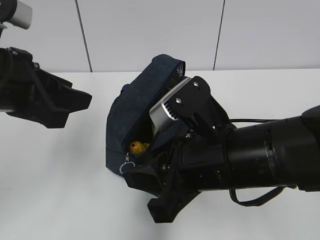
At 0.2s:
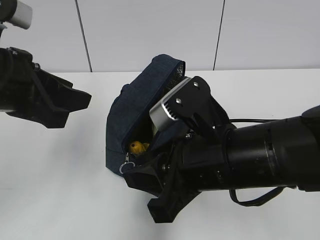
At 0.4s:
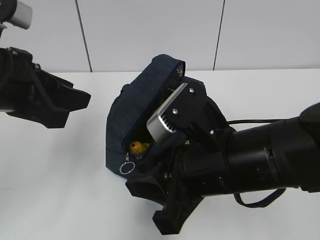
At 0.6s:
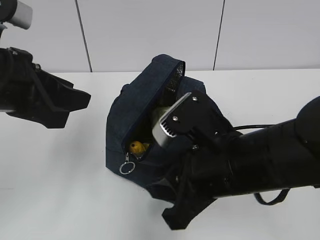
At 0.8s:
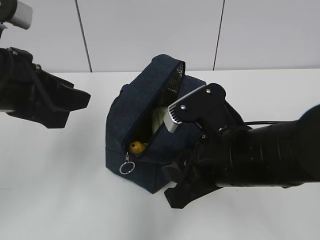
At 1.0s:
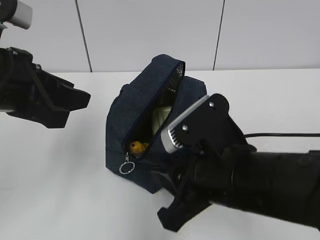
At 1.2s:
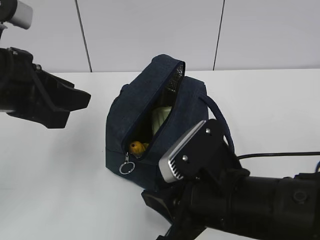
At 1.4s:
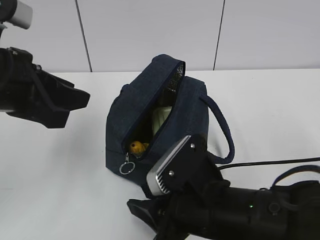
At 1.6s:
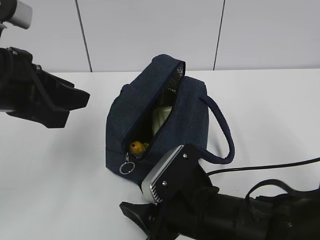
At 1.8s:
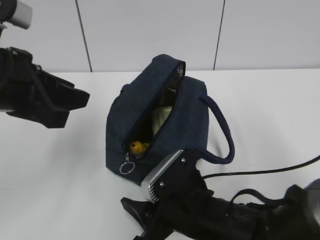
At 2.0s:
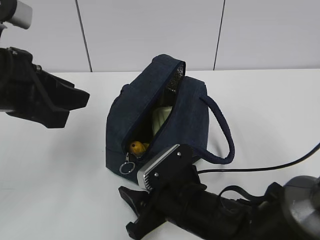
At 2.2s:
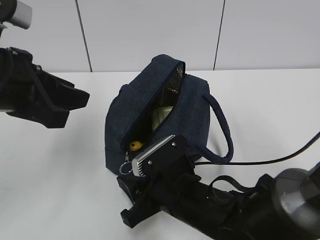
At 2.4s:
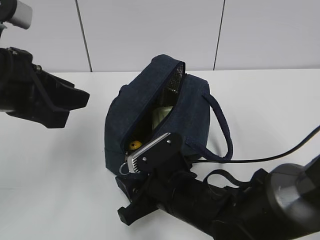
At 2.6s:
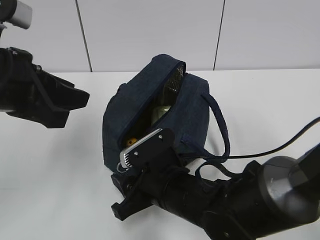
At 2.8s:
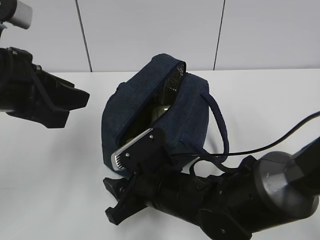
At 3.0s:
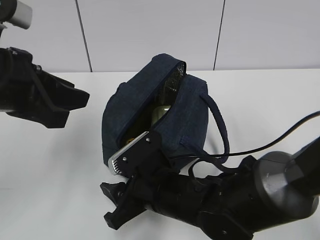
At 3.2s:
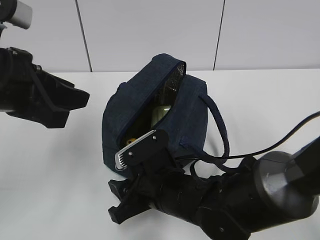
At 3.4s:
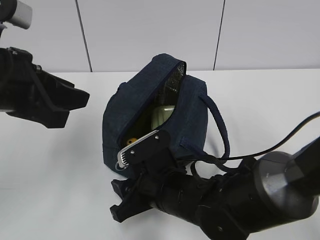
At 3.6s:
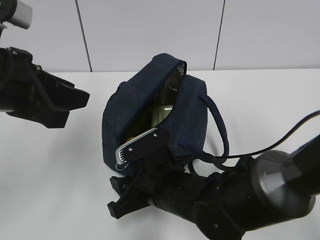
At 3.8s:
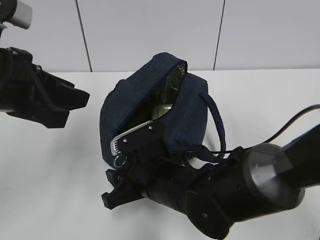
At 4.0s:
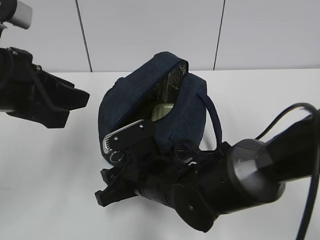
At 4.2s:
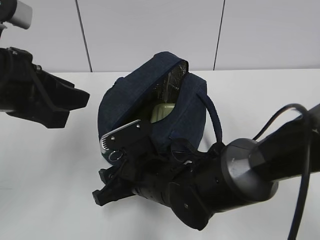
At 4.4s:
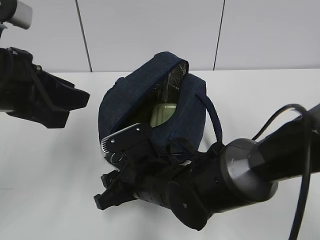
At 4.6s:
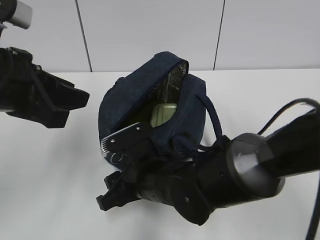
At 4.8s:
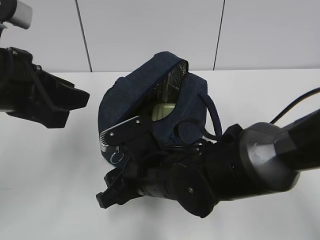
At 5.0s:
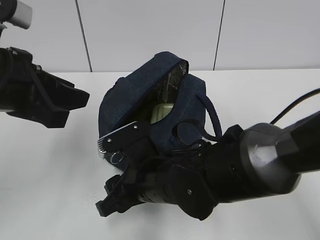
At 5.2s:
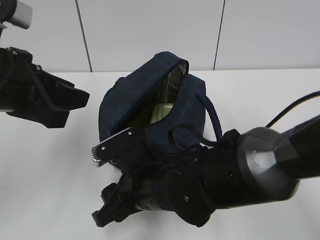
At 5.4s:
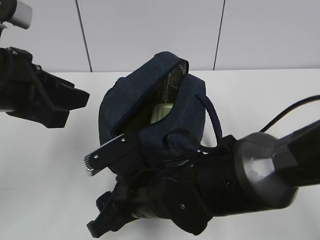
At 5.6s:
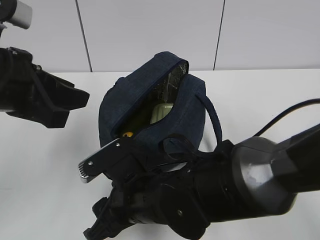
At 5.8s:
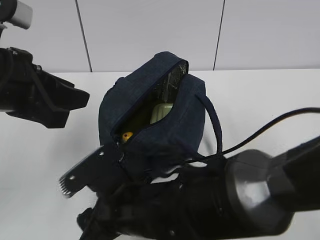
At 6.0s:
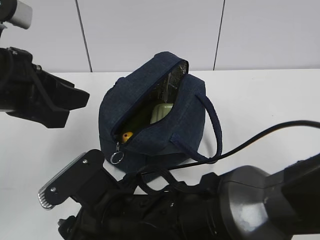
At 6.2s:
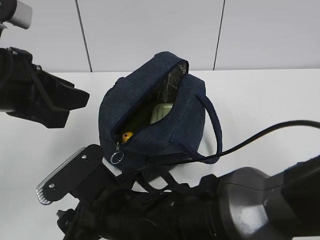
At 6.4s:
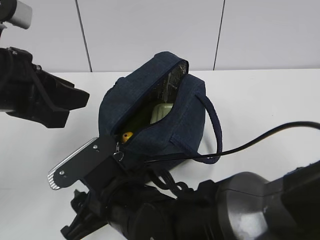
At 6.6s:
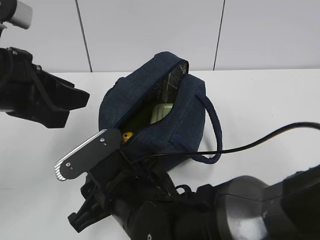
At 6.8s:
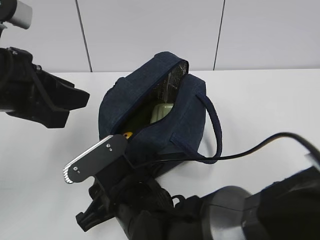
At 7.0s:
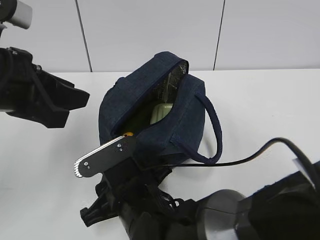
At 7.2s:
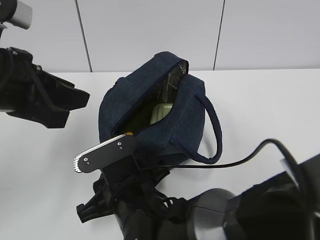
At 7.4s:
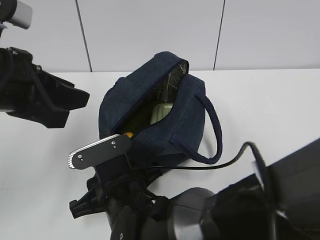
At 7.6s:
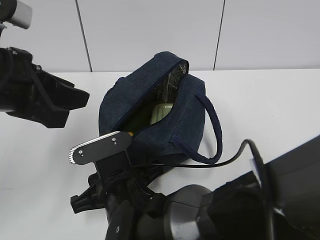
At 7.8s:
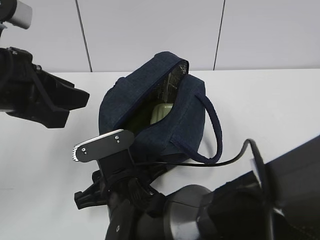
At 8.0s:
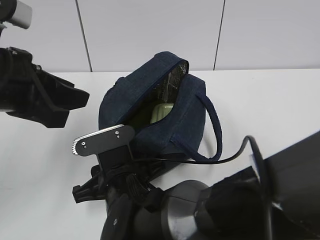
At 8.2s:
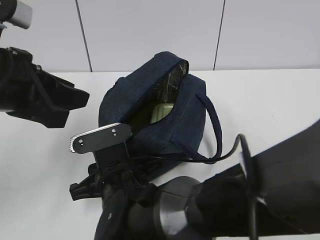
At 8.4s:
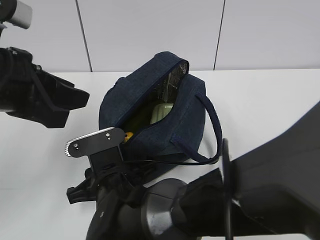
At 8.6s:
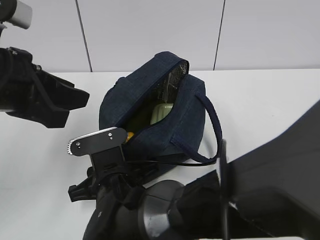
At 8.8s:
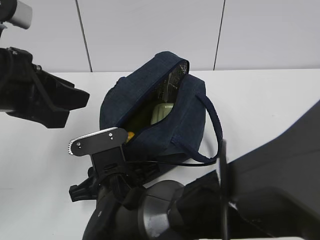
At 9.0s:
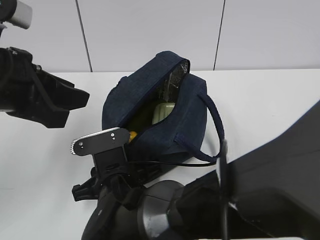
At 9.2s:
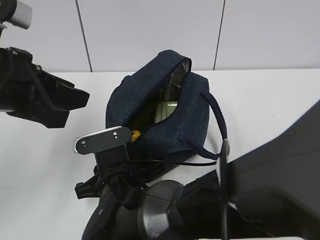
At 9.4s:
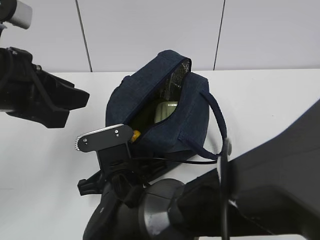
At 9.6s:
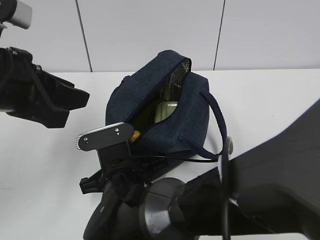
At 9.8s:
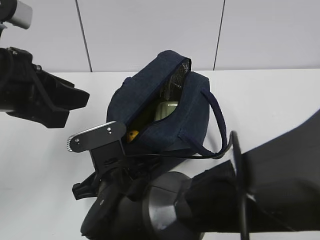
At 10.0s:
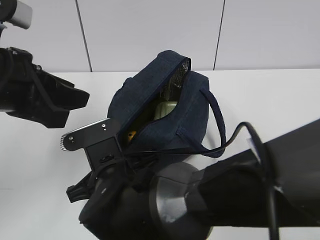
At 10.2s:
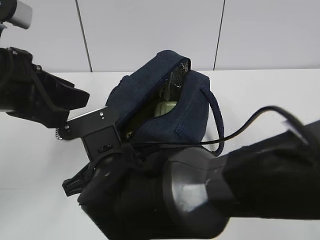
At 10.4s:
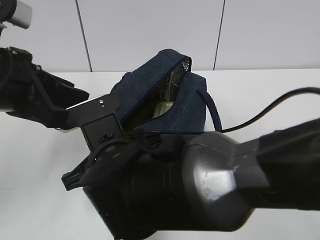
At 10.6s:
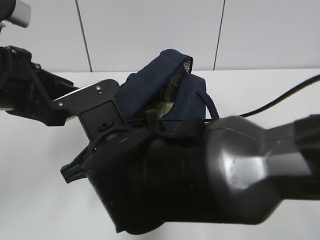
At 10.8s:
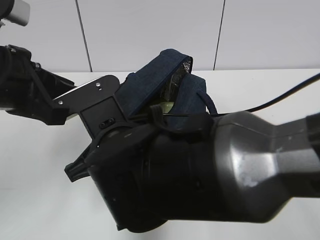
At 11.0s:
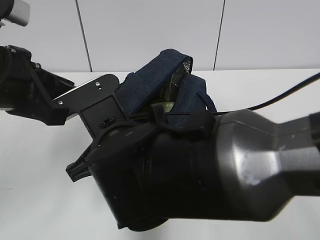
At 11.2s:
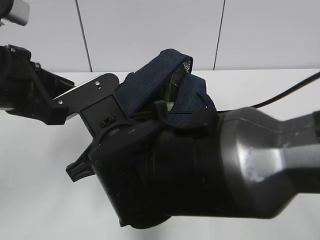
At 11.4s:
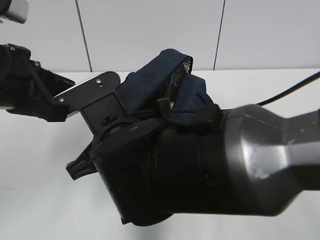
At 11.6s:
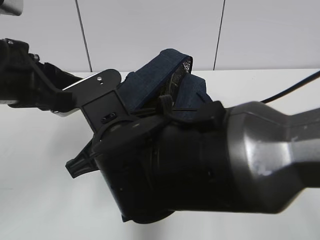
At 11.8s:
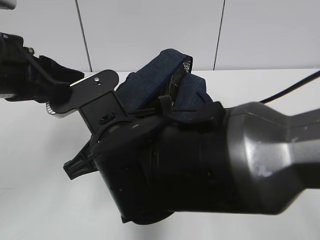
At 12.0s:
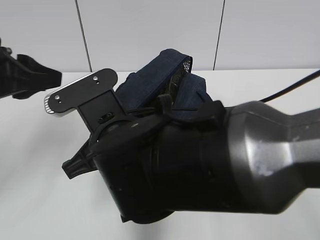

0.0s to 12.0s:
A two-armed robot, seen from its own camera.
0.0s to 1.6s: The right gripper heads downward, covering about 10 cm.
1.6s to 3.0s: The right gripper shifts by roughly 5 cm.
3.0s to 4.4s: The grippers move only a little.
4.4s to 6.0s: The right gripper is displaced backward by some 5 cm.
7.6s to 9.0s: There are only small adjustments of the grippers.
9.0s to 10.4s: The right gripper travels upward by roughly 10 cm, and closes its fingers.

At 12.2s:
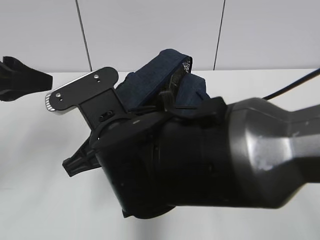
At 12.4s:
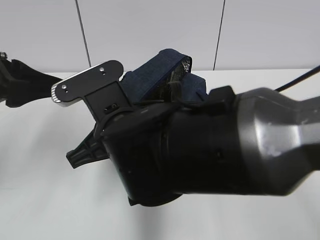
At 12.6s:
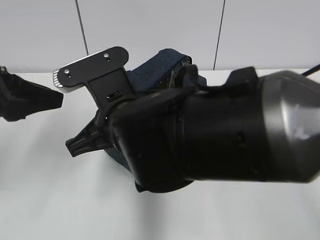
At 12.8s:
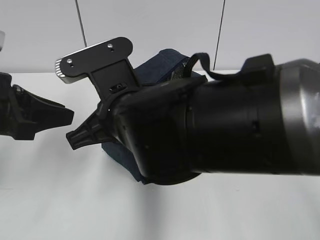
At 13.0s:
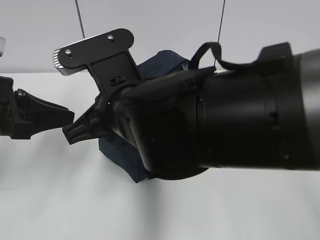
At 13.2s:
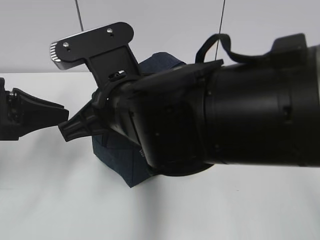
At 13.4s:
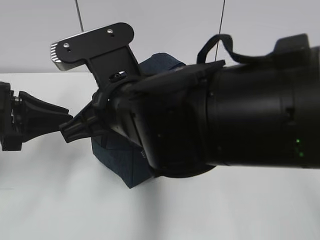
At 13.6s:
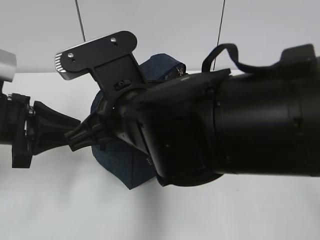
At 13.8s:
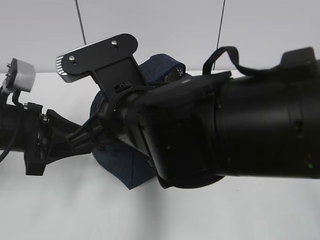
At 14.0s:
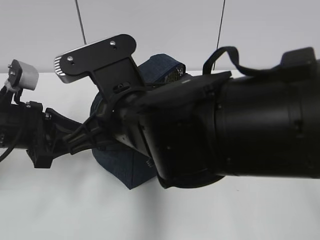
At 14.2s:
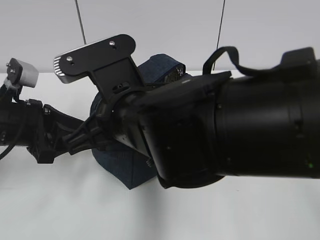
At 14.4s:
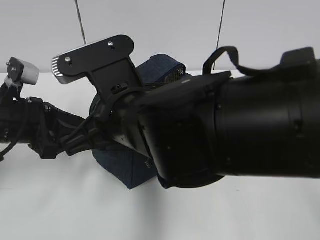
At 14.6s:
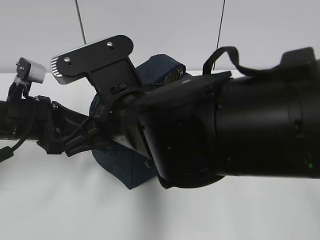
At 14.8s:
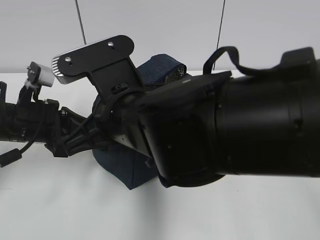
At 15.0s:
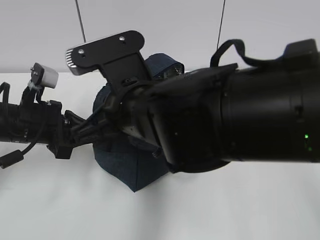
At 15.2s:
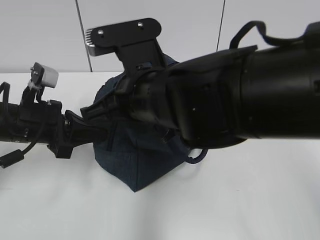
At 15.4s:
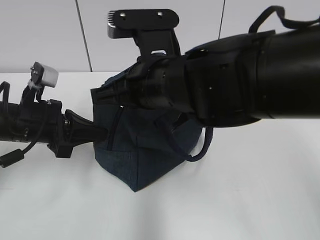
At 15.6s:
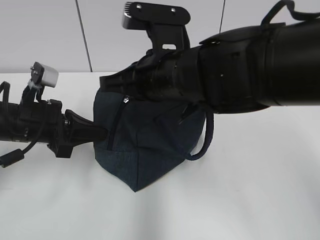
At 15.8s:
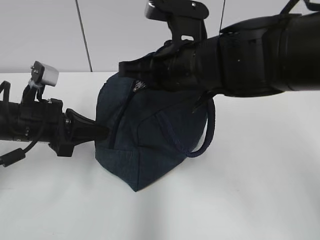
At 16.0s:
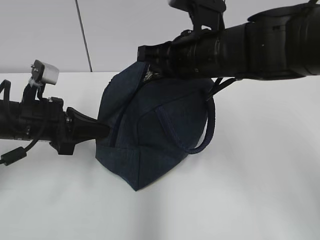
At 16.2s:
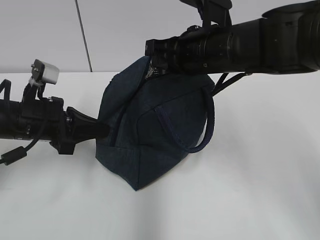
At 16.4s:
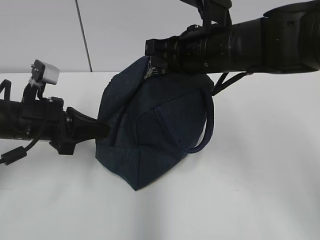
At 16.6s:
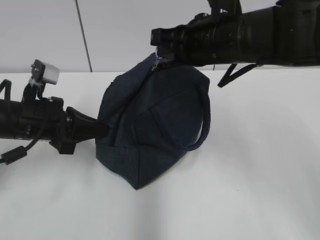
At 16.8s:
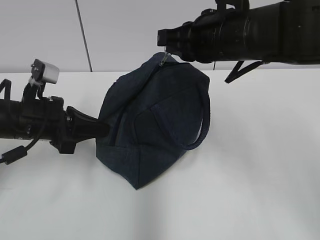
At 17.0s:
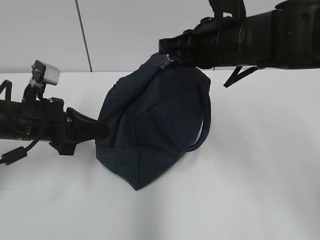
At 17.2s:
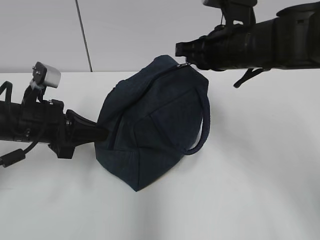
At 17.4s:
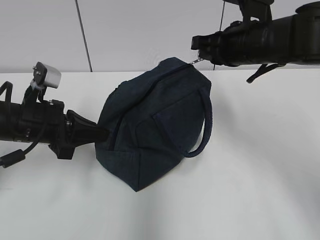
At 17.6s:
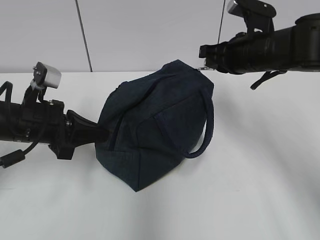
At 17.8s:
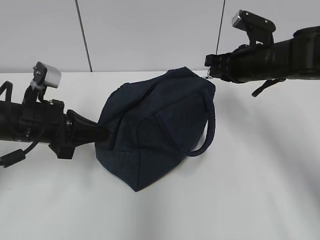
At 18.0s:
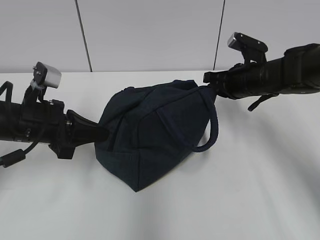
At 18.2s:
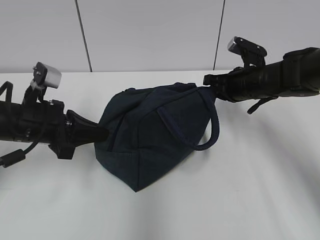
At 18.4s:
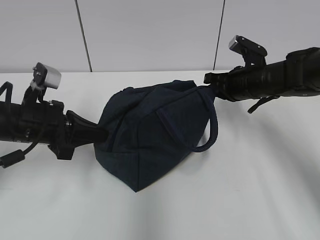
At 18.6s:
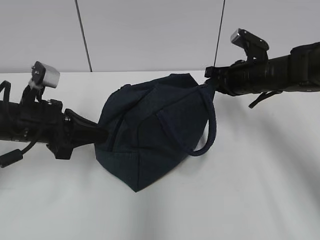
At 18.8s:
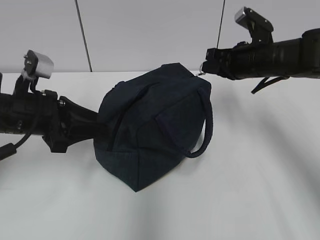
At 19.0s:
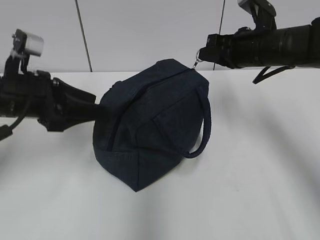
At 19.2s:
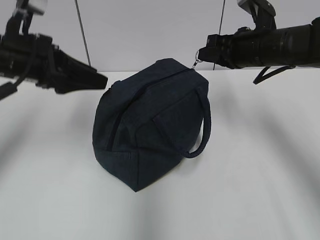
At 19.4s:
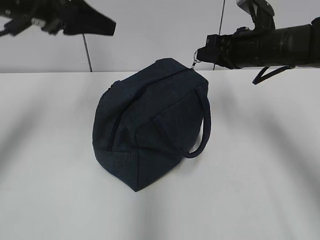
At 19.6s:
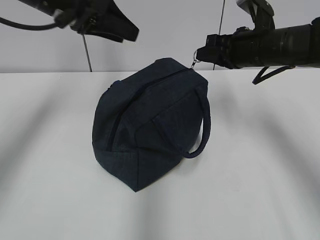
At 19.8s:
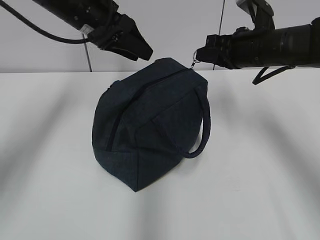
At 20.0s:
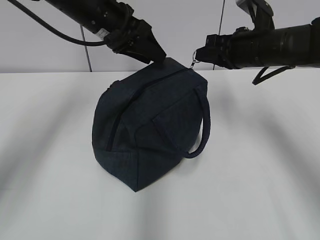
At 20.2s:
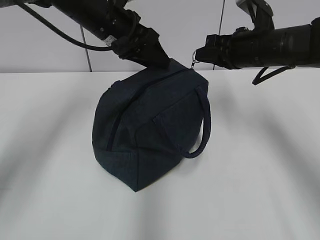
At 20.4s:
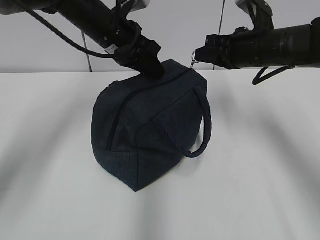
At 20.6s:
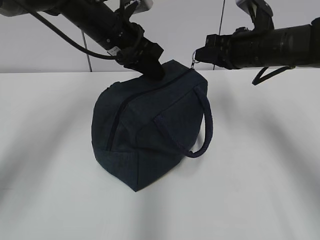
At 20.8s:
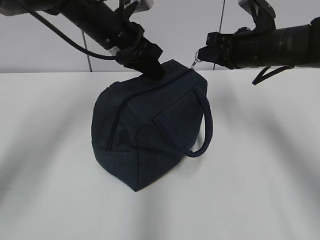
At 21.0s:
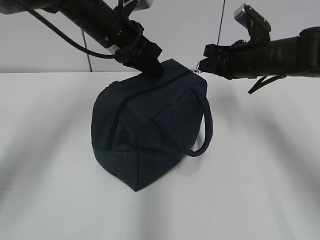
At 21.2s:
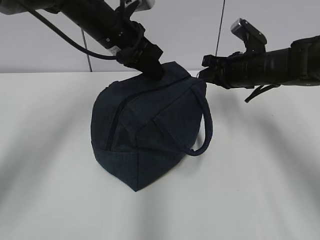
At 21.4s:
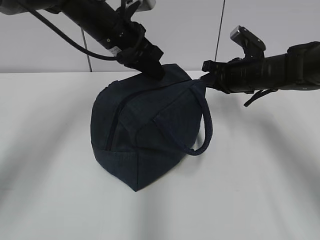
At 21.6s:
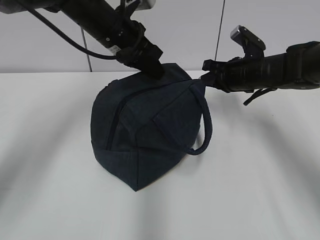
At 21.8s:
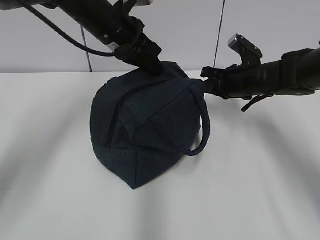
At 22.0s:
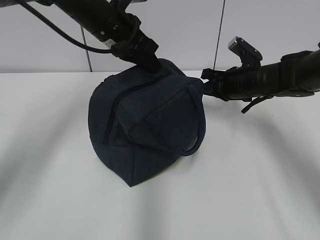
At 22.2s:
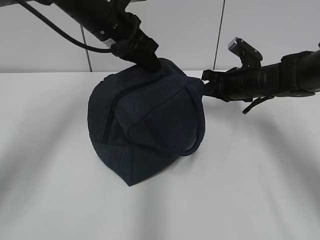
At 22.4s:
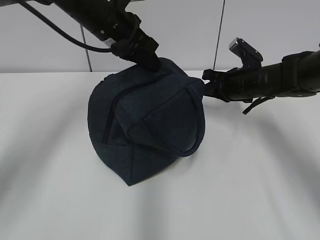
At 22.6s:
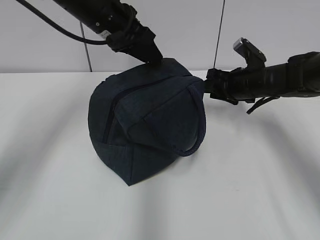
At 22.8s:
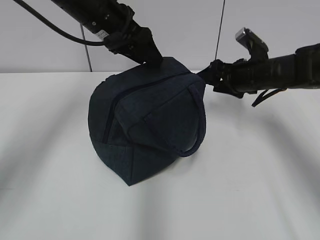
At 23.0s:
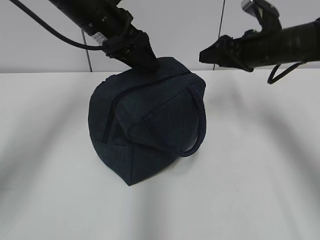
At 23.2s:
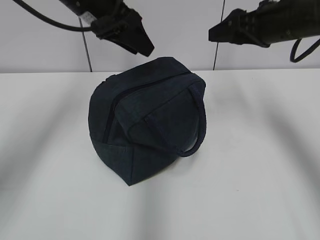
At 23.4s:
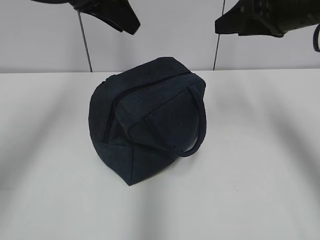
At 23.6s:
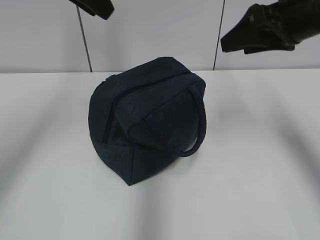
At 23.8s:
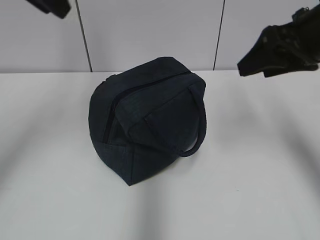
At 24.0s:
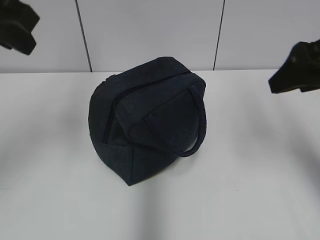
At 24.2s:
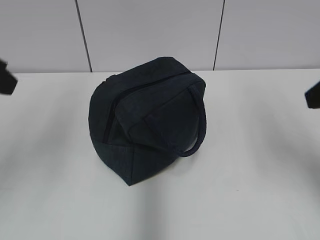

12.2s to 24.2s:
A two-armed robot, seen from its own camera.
12.2s to 13.8s: The left gripper heads downward, covering approximately 10 cm.
13.8s to 15.2s: The left gripper closes up.
15.2s to 16.6s: The right gripper goes some 10 cm to the right and forward.
16.6s to 18.2s: The right gripper heads downward, to the right and forward, covering some 20 cm.
18.2s to 19.8s: The right gripper heads upward, covering about 10 cm. The left gripper shifts approximately 20 cm upward, forward and to the right, and opens up.
19.8s to 21.2s: The left gripper closes up; the right gripper travels downward by roughly 5 cm.
21.2s to 22.6s: The left gripper opens, while the right gripper opens up.
22.6s to 24.2s: The left gripper travels backward and to the left by approximately 25 cm. Meanwhile the right gripper heads backward and upward, covering roughly 30 cm.
